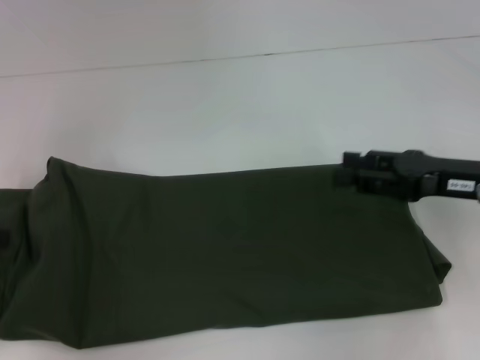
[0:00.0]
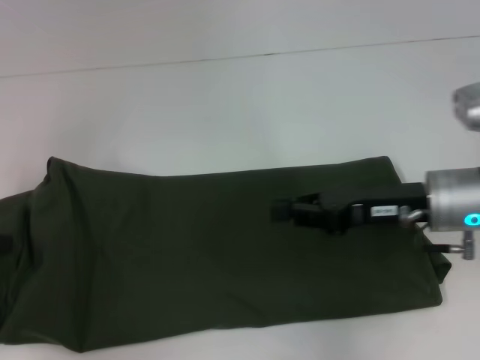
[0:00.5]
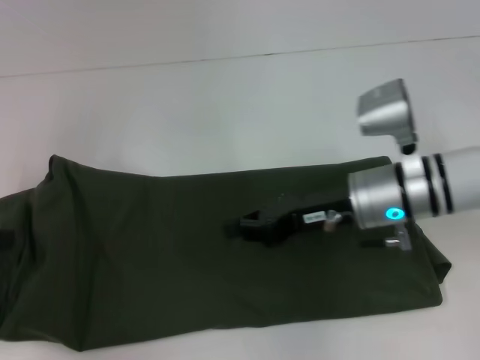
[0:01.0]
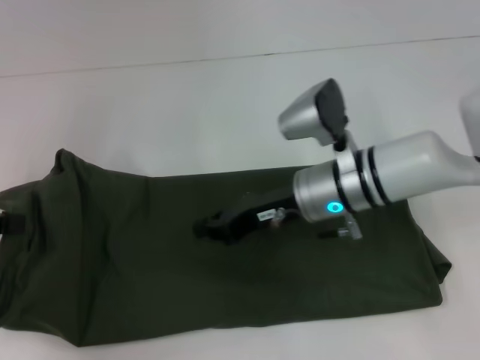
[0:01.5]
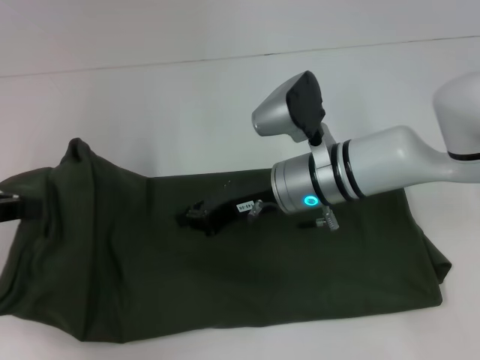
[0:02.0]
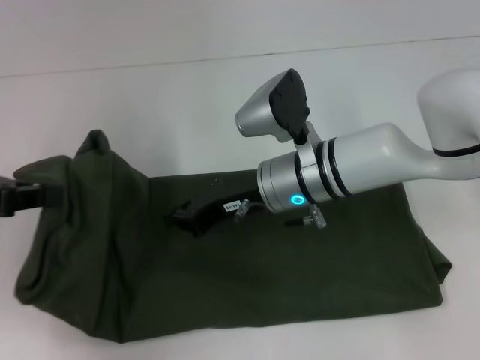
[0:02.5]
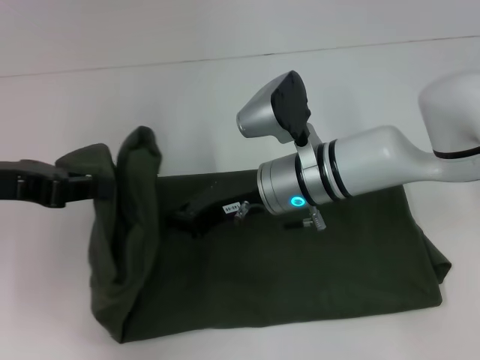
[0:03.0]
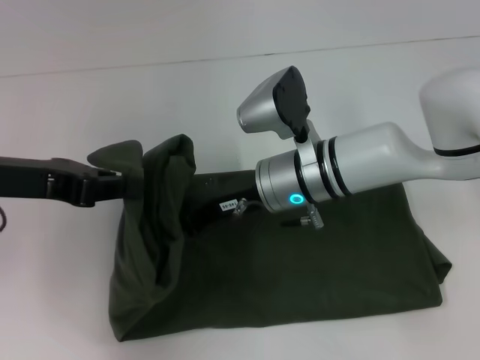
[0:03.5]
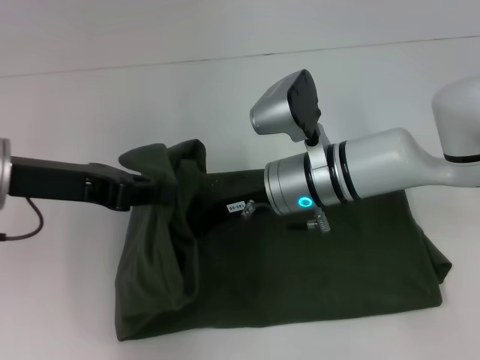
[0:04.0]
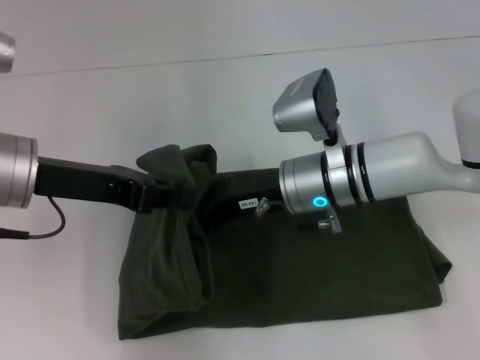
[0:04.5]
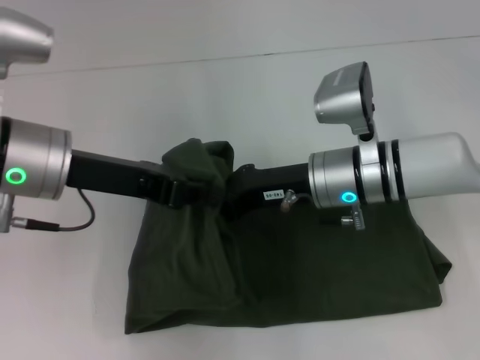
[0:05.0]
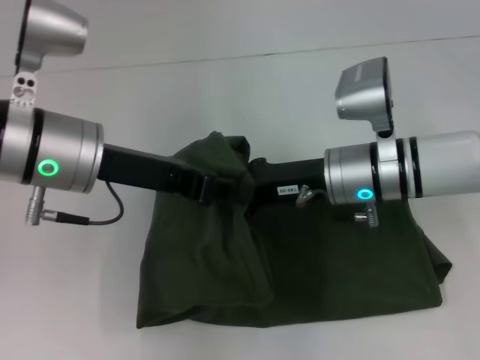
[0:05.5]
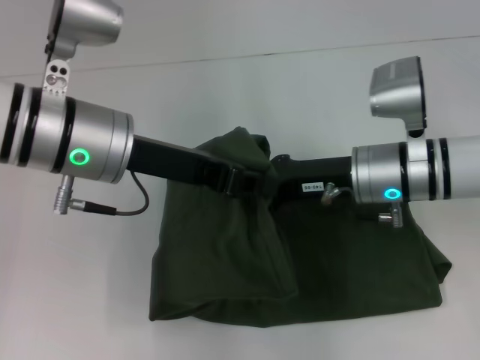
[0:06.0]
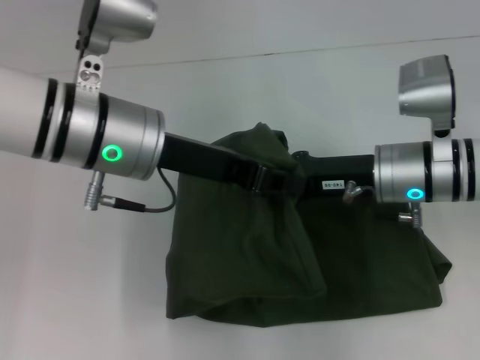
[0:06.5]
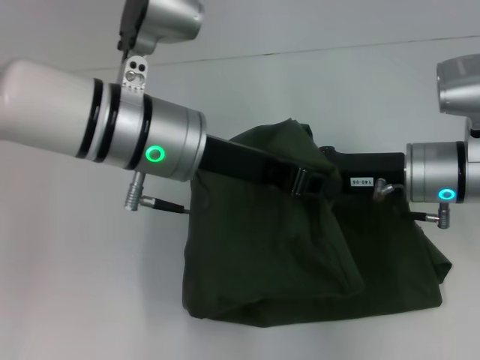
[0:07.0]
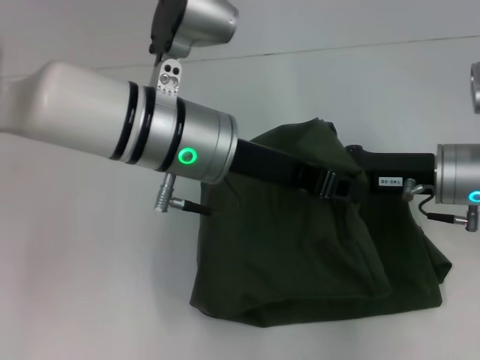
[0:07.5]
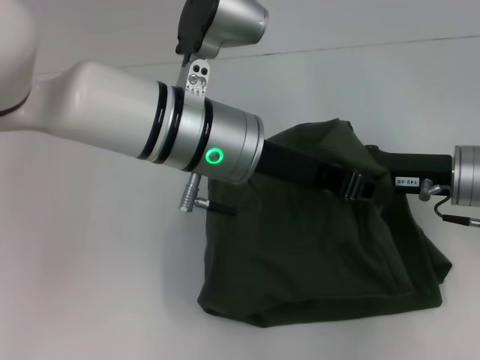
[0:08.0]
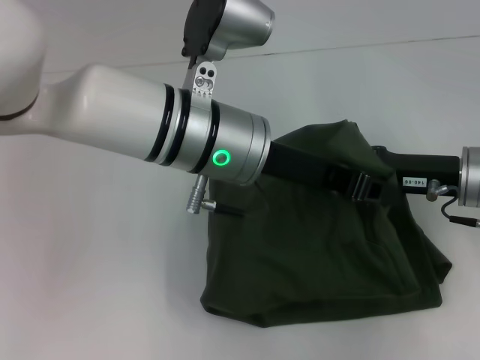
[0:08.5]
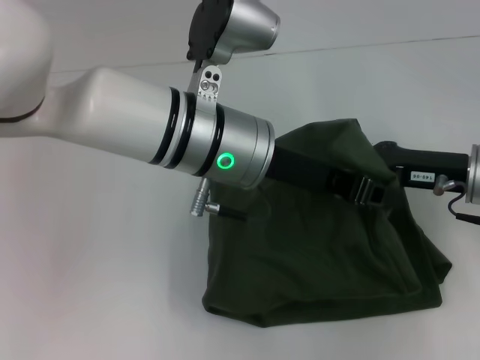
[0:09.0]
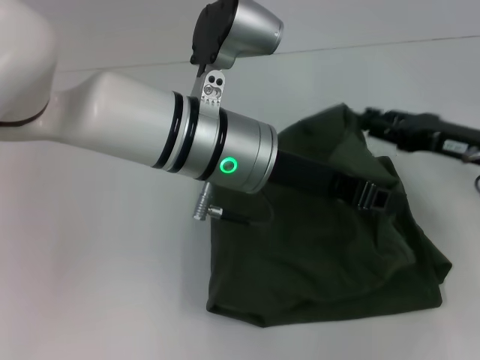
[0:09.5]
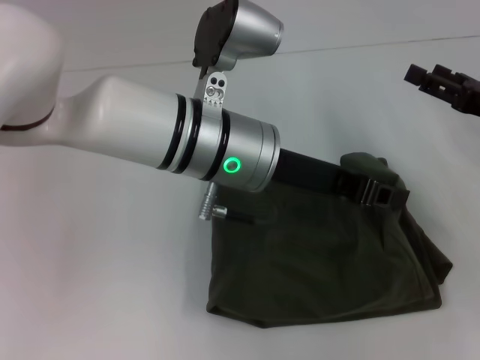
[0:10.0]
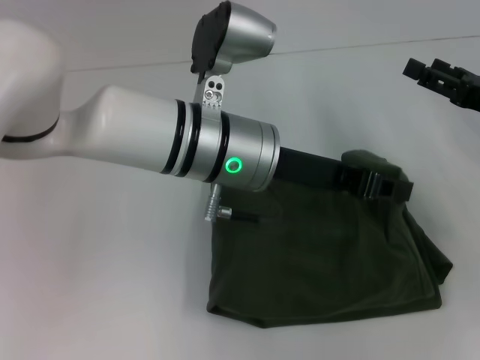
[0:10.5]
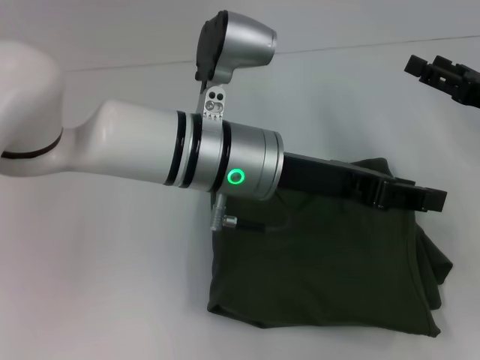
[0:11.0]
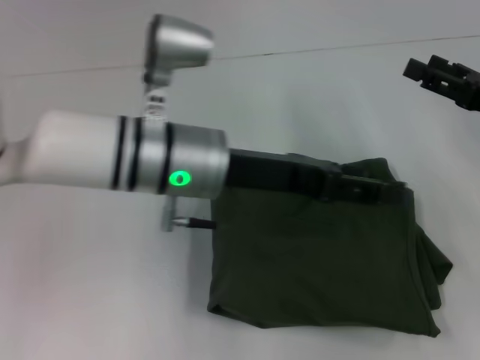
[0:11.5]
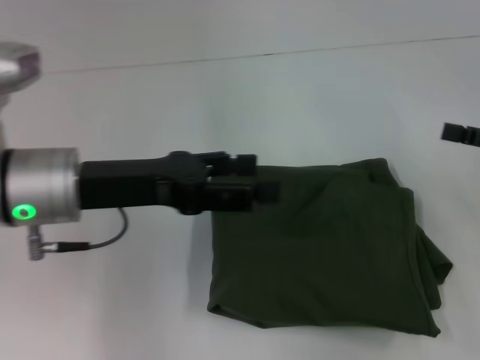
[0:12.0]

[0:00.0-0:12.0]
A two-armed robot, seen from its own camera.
Step, 0:00.0 to 0:11.5: Fold the clothes with your left hand.
0:00.0 to 0:02.0: The right gripper is displaced to the left by about 20 cm, and closes up.
0:02.0 to 0:04.0: The left gripper moves to the right, approximately 10 cm.
0:04.0 to 0:06.0: The grippers both shift to the right by some 10 cm.
0:06.0 to 0:08.0: The grippers both shift to the right by some 10 cm.
0:08.0 to 0:10.0: The right gripper shifts approximately 10 cm to the right, and opens its fingers.
0:10.0 to 0:12.0: The right gripper changes place by some 5 cm. The left gripper moves to the left, some 15 cm, and opens up.

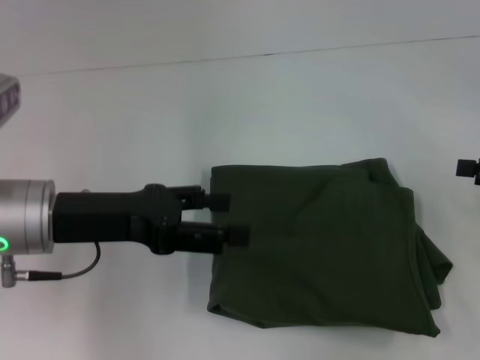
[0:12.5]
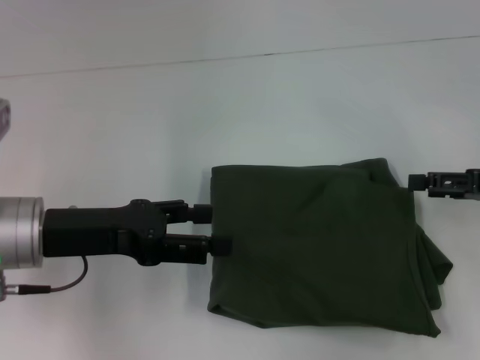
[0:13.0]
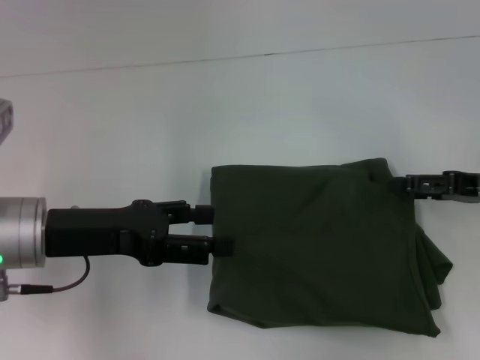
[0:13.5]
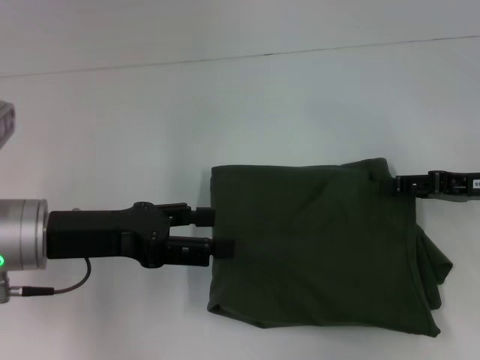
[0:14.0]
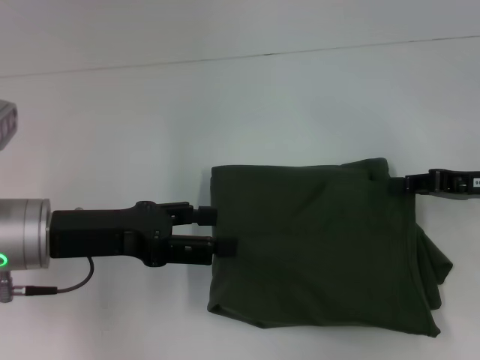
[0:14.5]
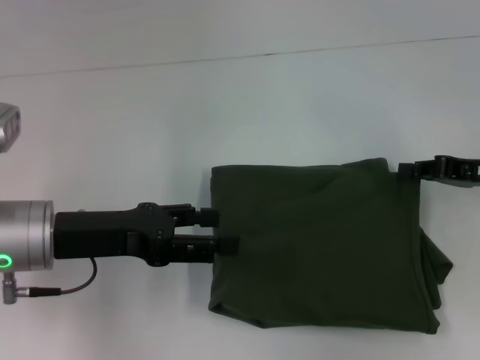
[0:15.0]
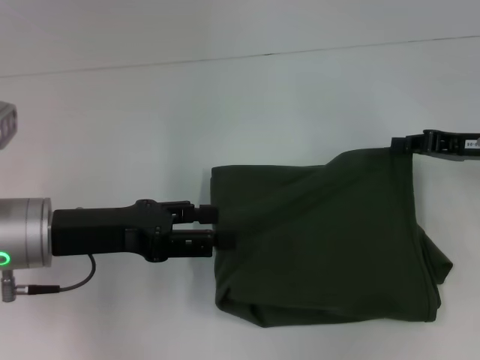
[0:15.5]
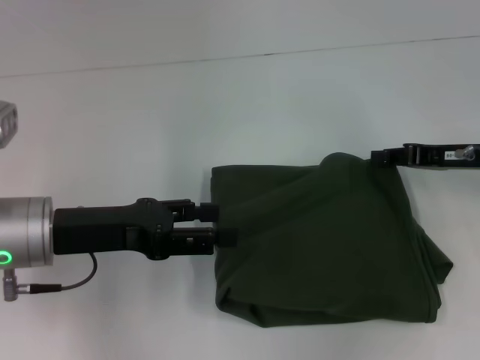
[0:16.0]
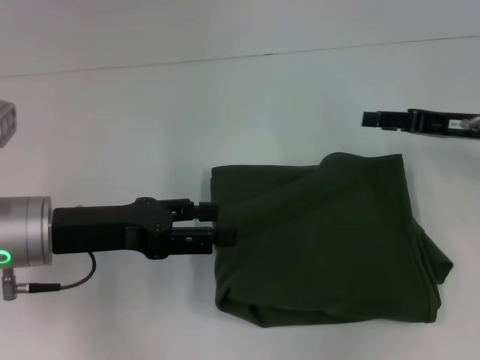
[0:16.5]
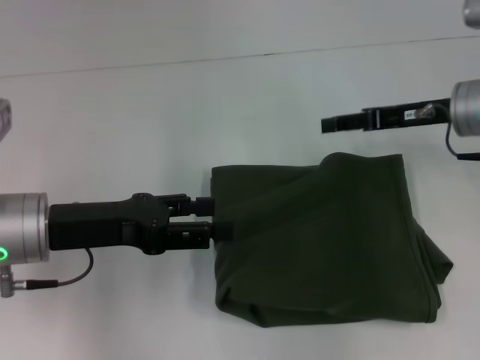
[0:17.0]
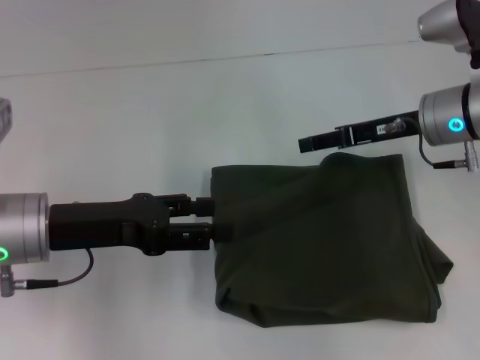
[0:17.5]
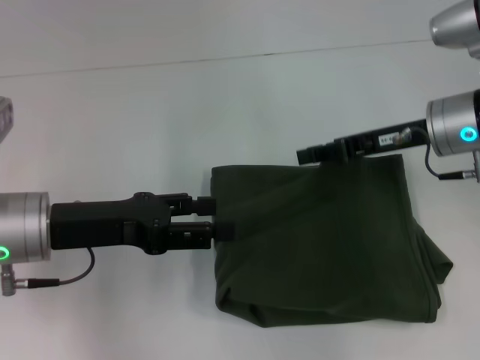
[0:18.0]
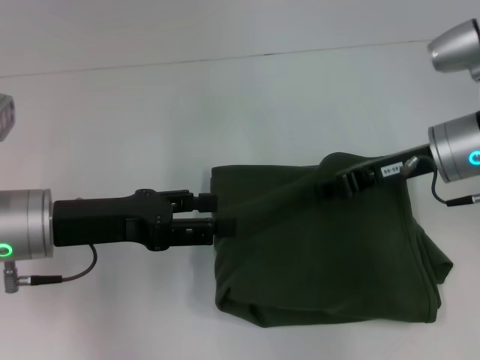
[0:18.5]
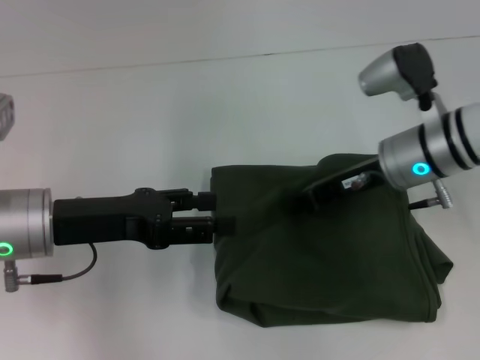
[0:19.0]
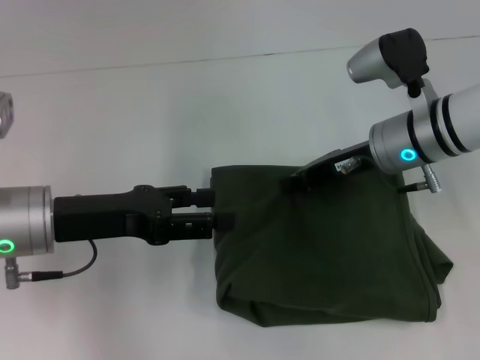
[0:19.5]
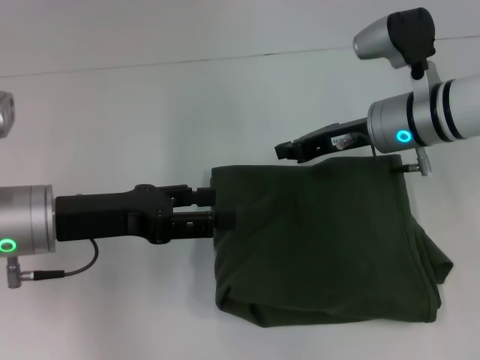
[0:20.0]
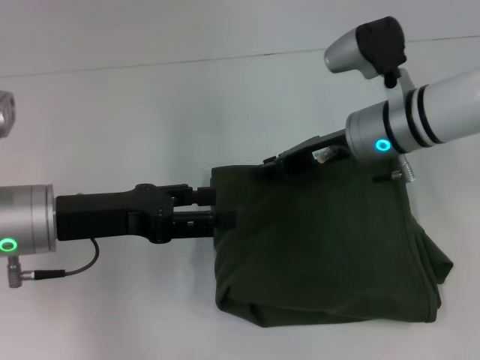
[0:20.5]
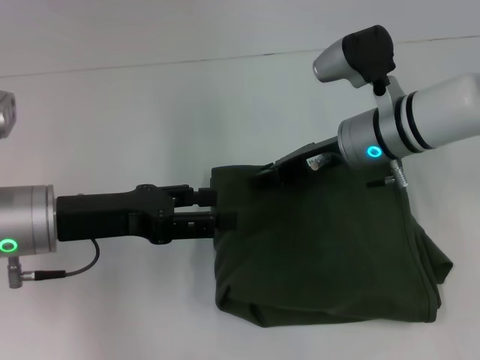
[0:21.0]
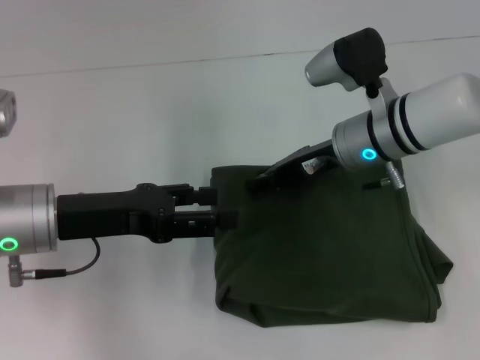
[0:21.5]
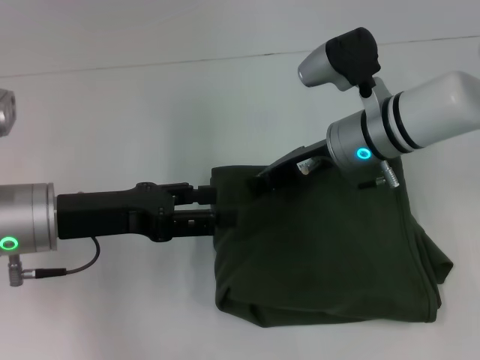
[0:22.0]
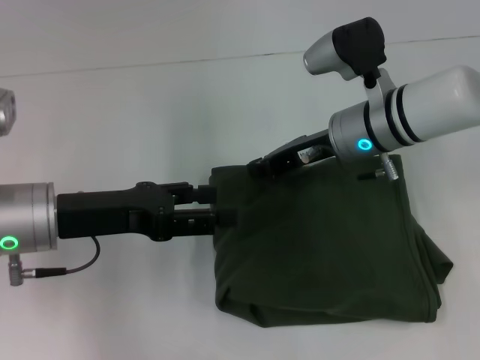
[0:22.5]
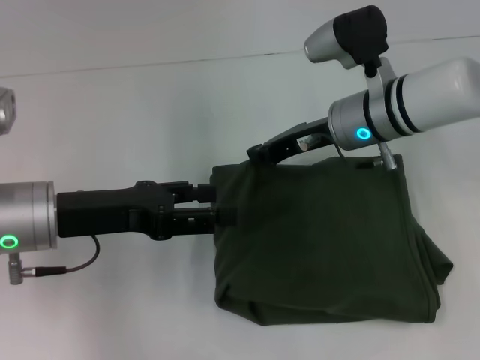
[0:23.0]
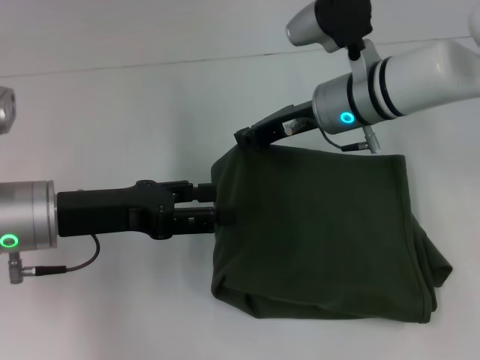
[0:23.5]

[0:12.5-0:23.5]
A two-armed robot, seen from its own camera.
0:12.5 to 0:14.5: The right gripper shifts roughly 5 cm to the left, and closes its fingers.
0:14.5 to 0:16.0: The right gripper closes up.
0:16.0 to 0:18.0: The right gripper heads to the left, covering roughly 5 cm, and opens its fingers.
0:18.0 to 0:20.0: The right gripper moves approximately 5 cm, and closes its fingers.
0:20.0 to 0:23.5: The grippers move only a little.

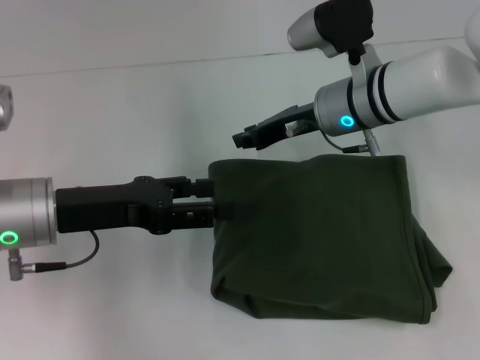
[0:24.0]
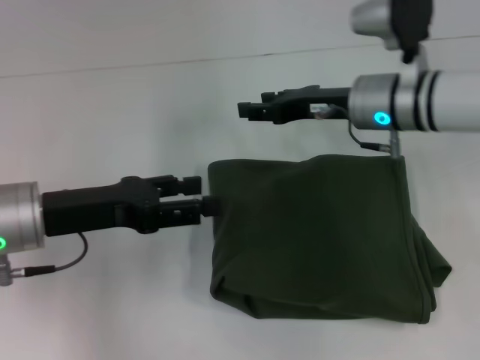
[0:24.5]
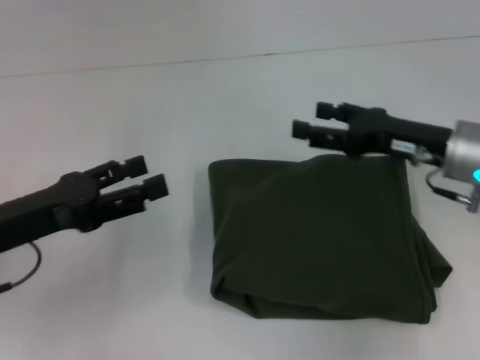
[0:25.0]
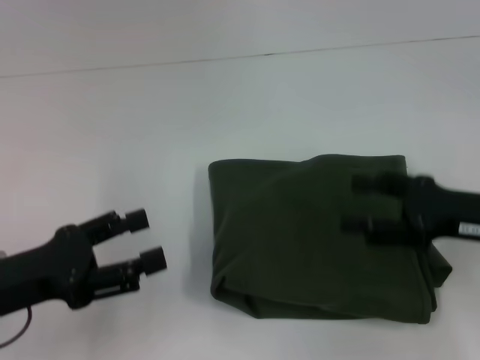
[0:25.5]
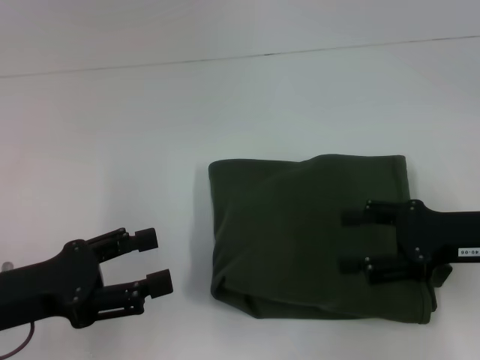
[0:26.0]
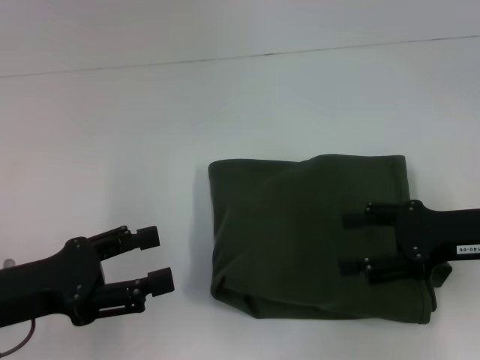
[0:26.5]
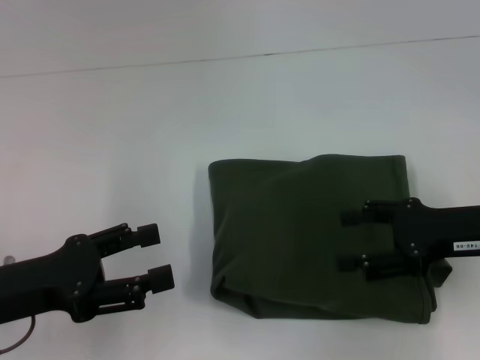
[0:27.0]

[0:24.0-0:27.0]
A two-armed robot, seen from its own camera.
0:24.0 to 0:25.5: The right gripper shifts approximately 20 cm backward and to the right, and opens up. The left gripper shifts approximately 10 cm backward and to the left.
0:25.5 to 0:27.0: The grippers make only small movements.
